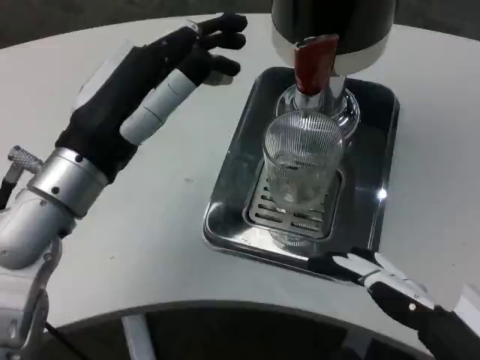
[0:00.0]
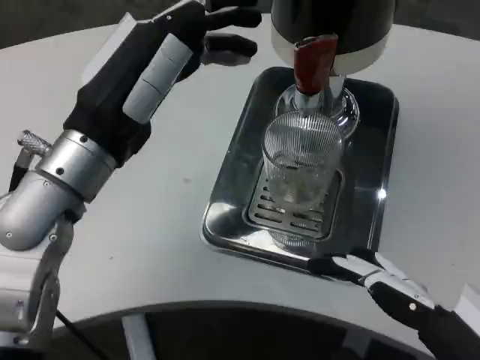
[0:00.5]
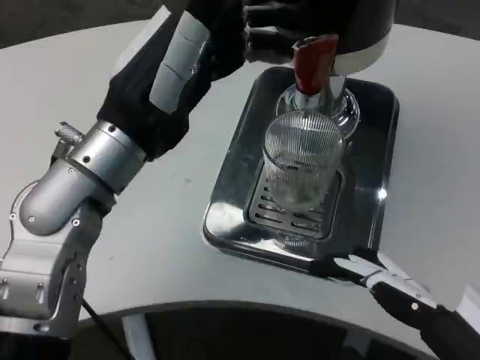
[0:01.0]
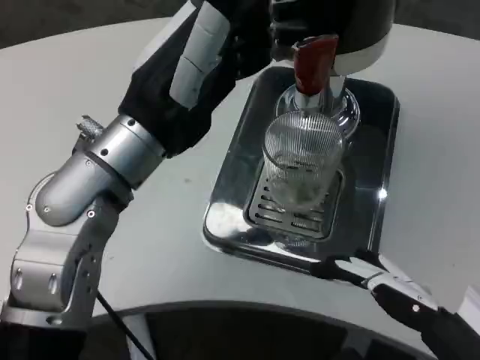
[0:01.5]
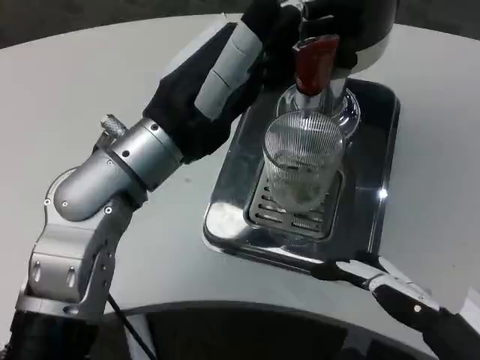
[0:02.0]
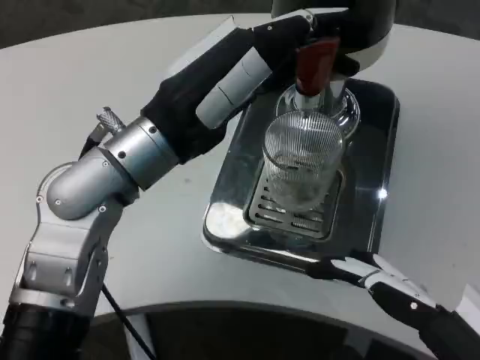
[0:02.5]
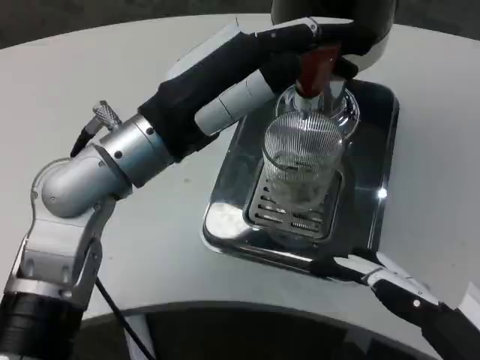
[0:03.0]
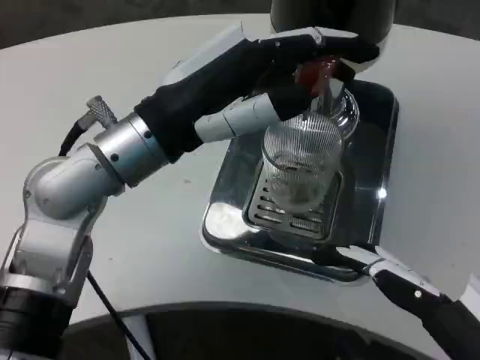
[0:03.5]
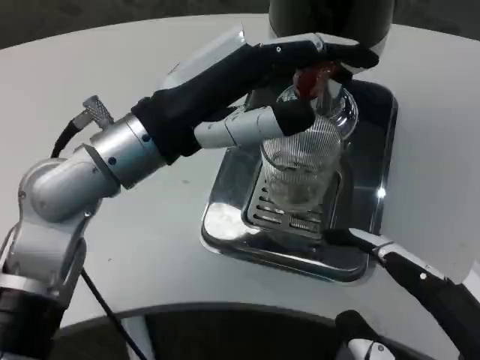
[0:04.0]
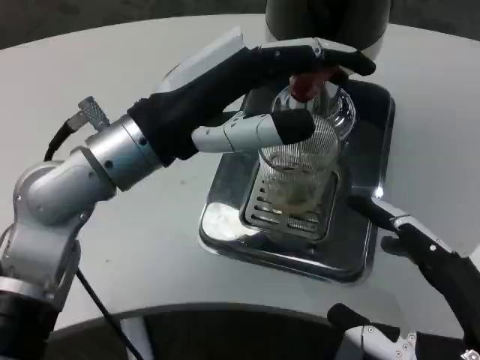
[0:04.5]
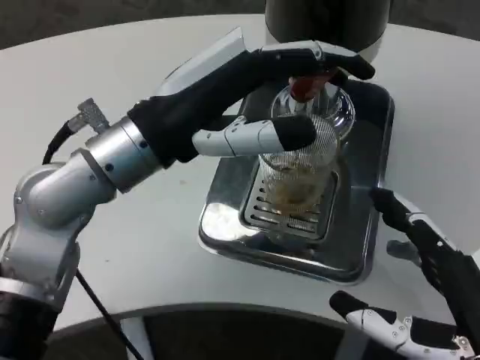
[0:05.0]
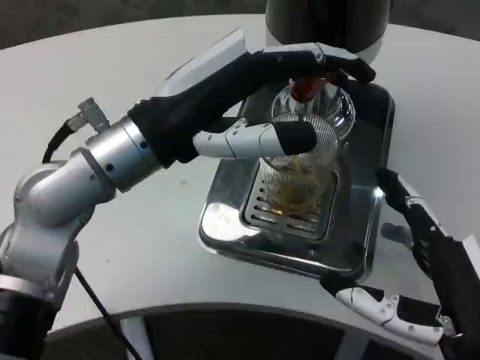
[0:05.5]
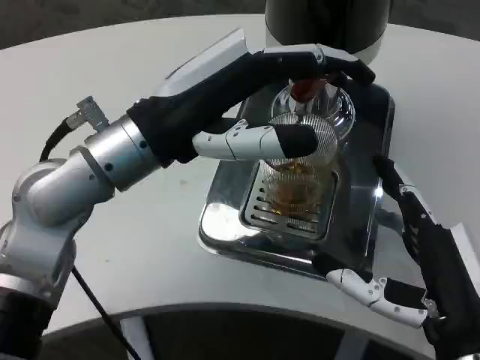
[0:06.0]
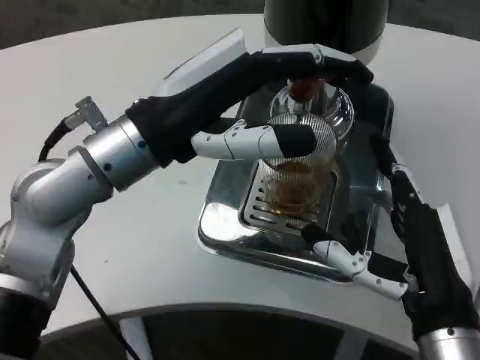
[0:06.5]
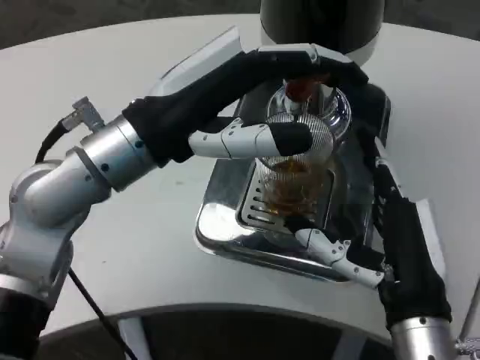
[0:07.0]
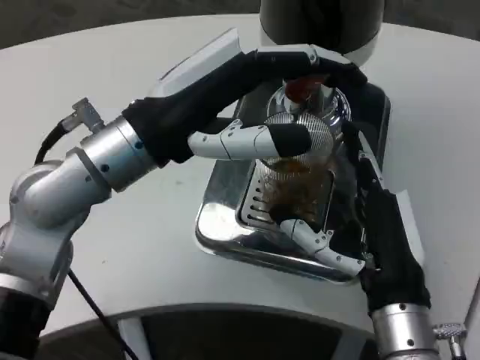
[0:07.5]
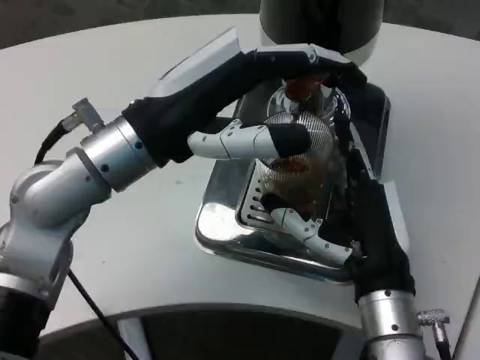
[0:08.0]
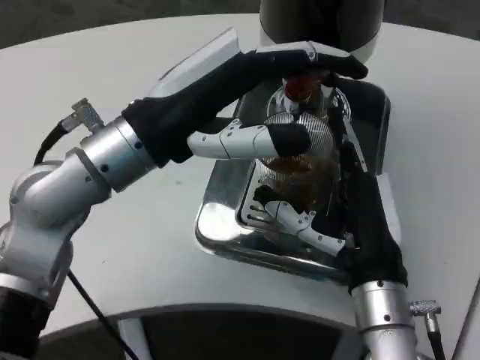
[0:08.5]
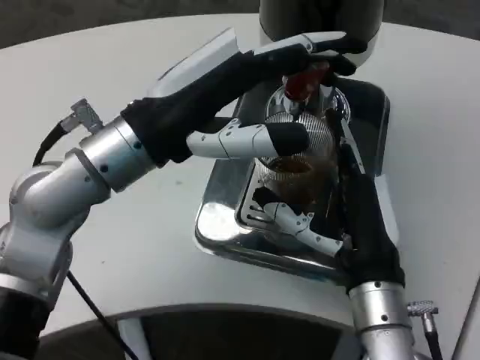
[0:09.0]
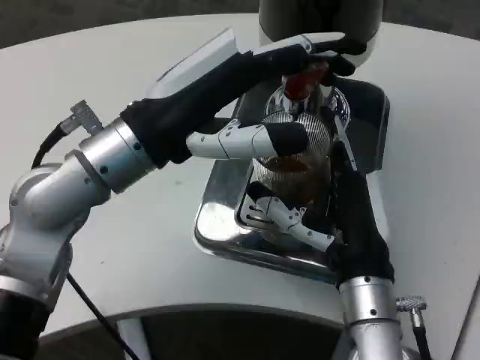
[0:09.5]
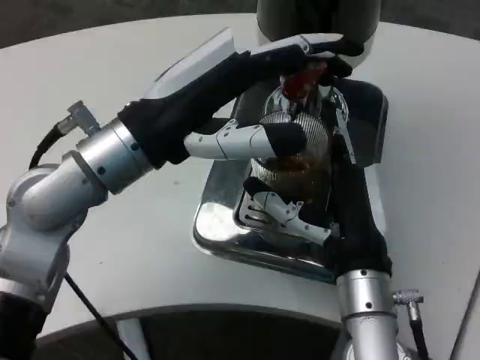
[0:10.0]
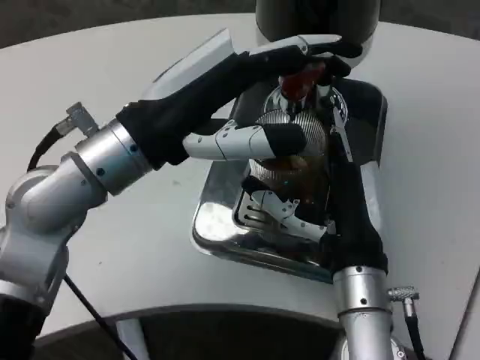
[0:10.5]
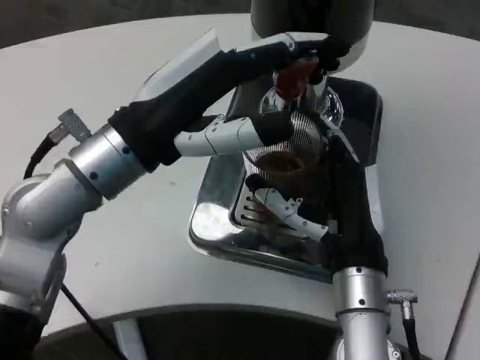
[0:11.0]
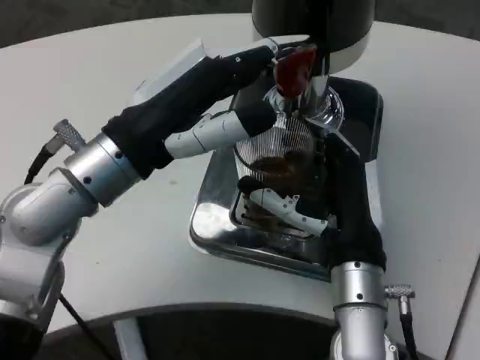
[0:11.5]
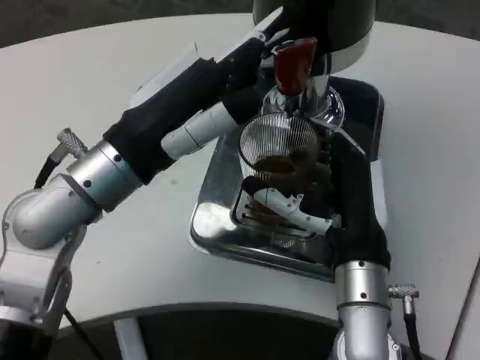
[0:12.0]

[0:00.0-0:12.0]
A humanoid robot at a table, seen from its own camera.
Task of the whole recording: Grasp the cup under the faucet to collect the drink, then remove the cup.
0:00.0 to 0:02.0: The left hand changes place by about 5 cm.
0:04.0 to 0:06.0: The right hand moves forward and downward, roughly 10 cm.
0:06.0 to 0:08.0: The right hand is displaced forward and to the left by some 10 cm.
0:08.0 to 0:10.0: The hands make only small movements.

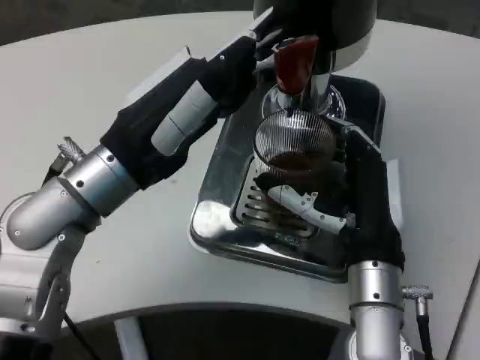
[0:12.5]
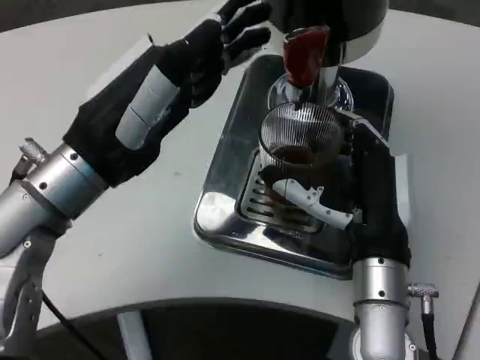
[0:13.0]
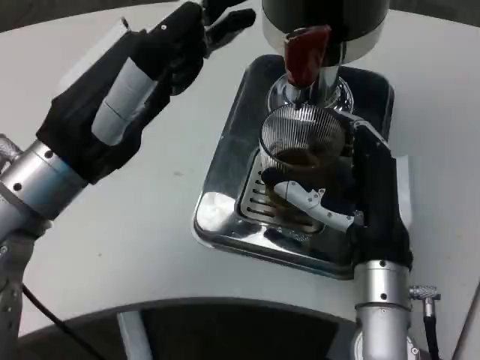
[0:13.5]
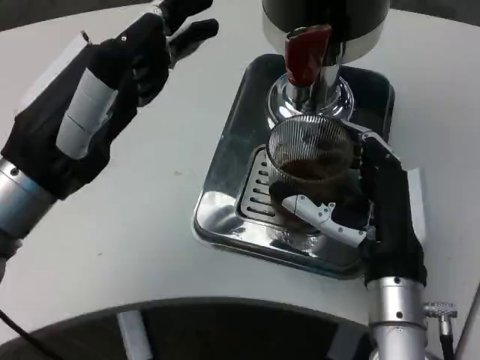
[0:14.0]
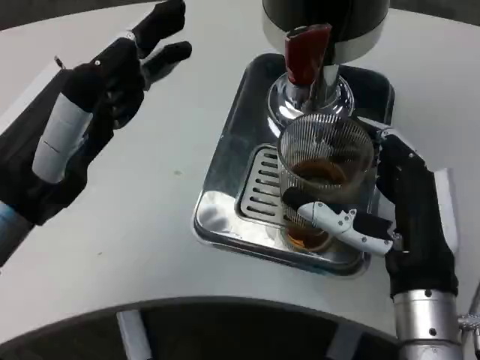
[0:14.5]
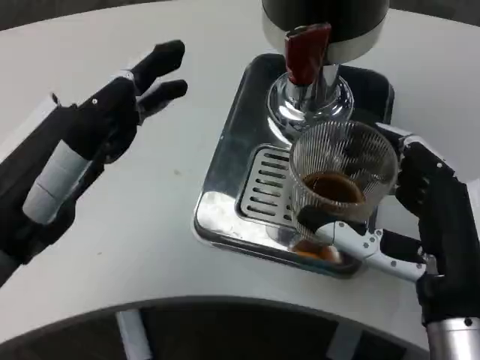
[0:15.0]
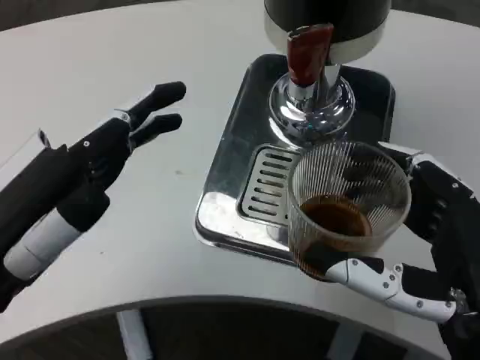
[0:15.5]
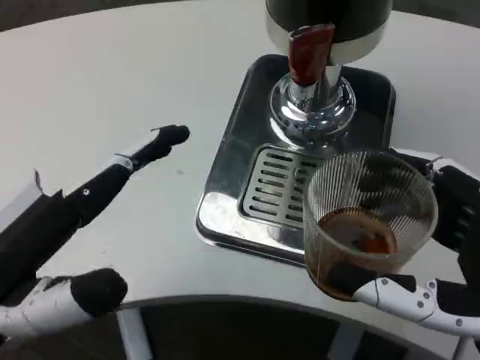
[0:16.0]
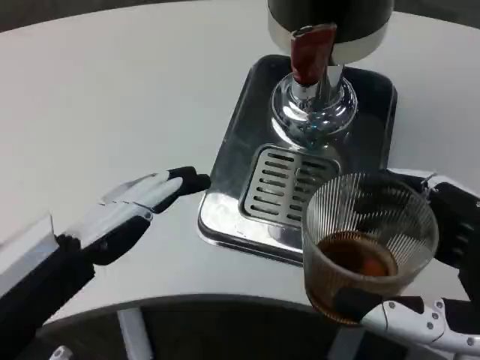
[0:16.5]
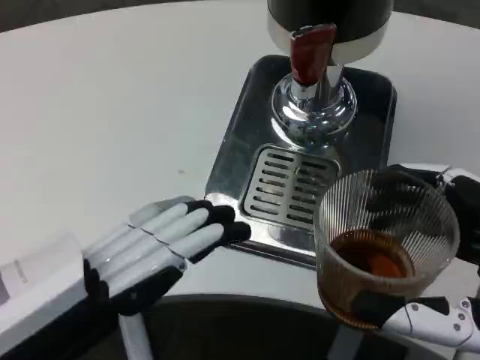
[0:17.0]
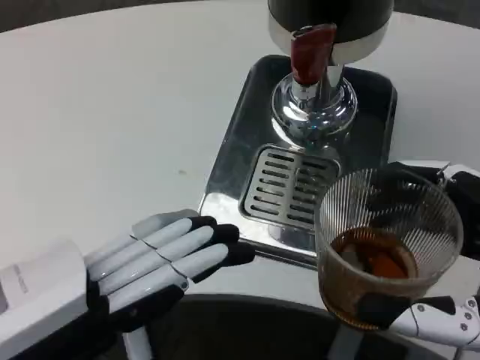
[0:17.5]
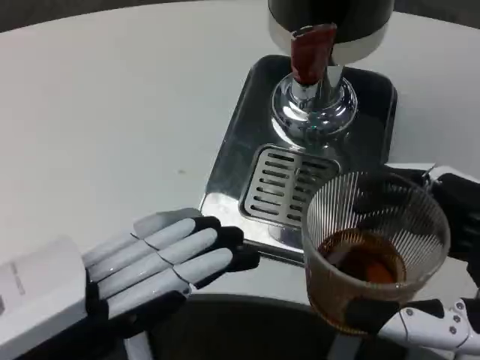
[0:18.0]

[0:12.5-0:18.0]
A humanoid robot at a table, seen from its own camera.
Task of the whole recording: Grasp the cup under the faucet to collect the drink, then remove the cup.
0:12.5 to 0:14.5: The right hand changes place by about 5 cm. Meanwhile the left hand travels backward and to the left by roughly 10 cm.
0:14.5 to 0:16.0: The left hand goes roughly 10 cm backward. Meanwhile the right hand goes roughly 10 cm backward and to the right.

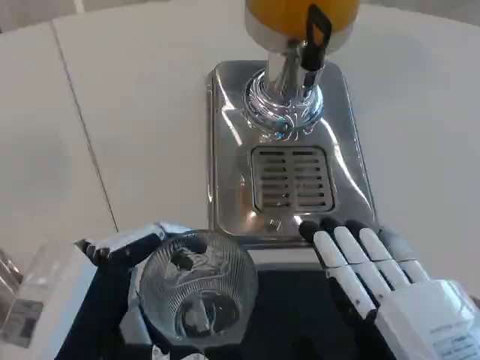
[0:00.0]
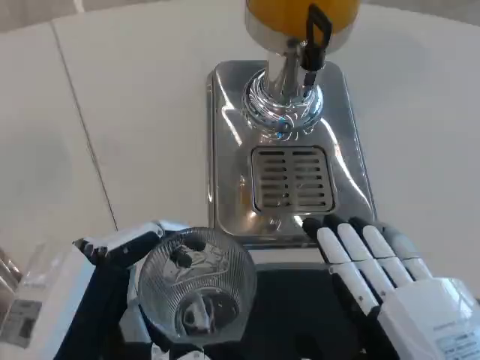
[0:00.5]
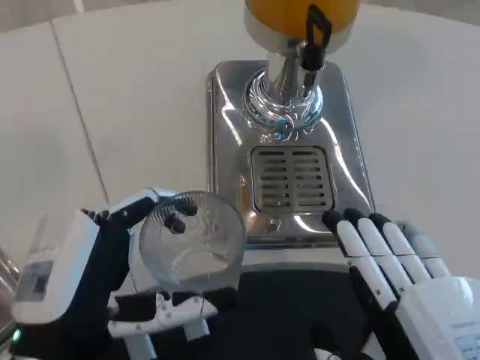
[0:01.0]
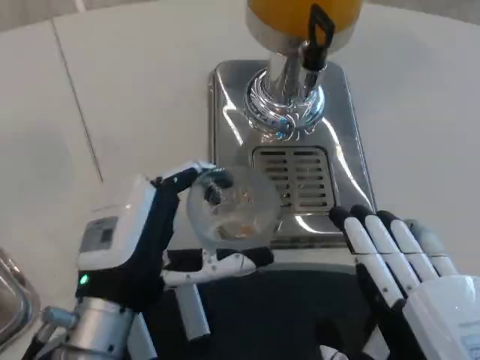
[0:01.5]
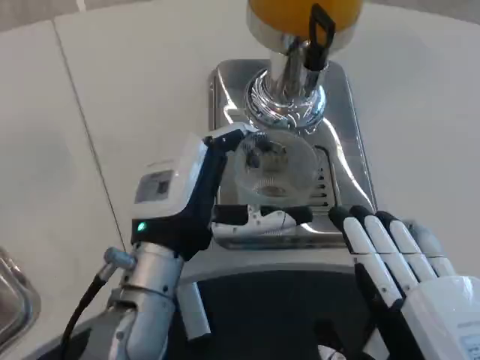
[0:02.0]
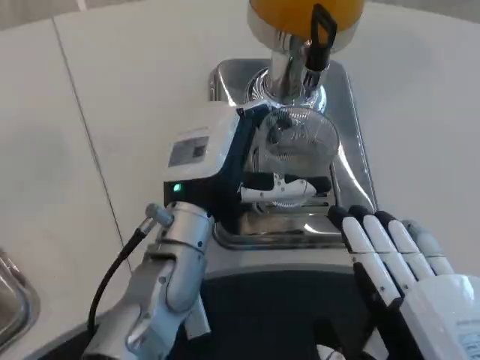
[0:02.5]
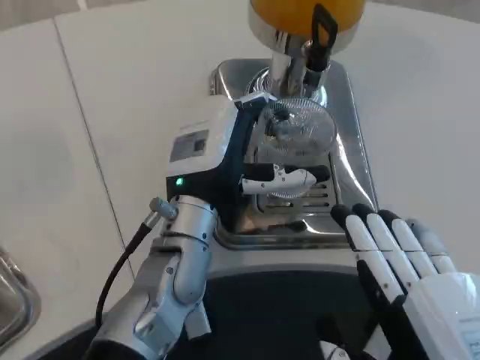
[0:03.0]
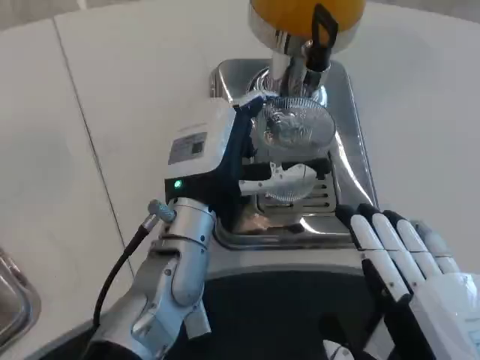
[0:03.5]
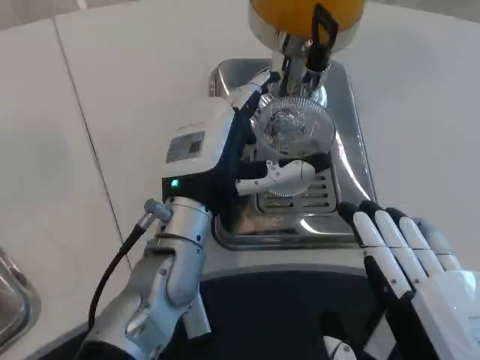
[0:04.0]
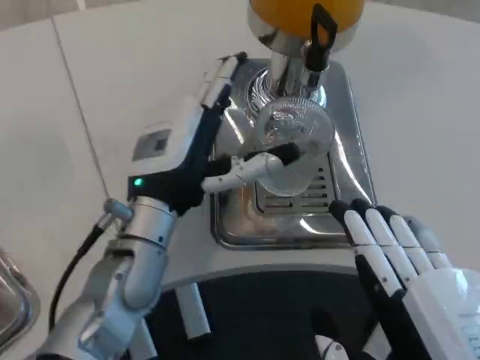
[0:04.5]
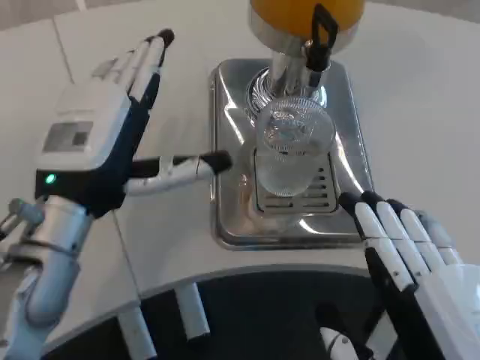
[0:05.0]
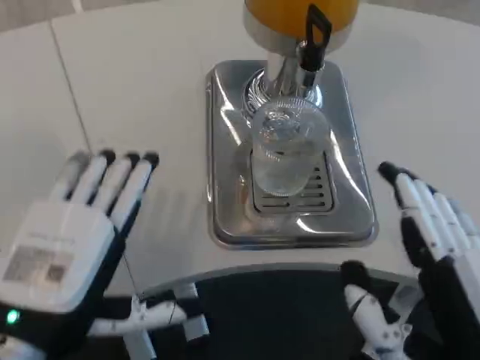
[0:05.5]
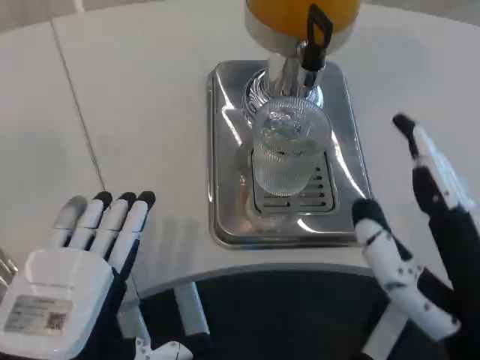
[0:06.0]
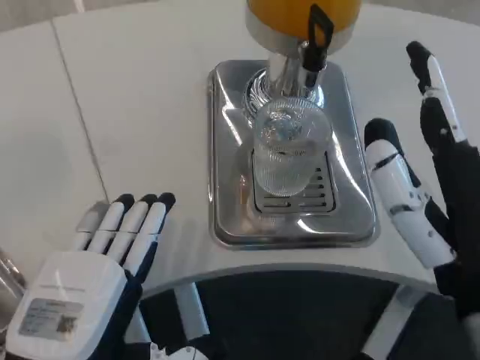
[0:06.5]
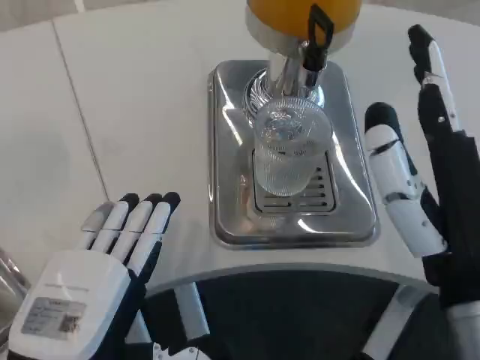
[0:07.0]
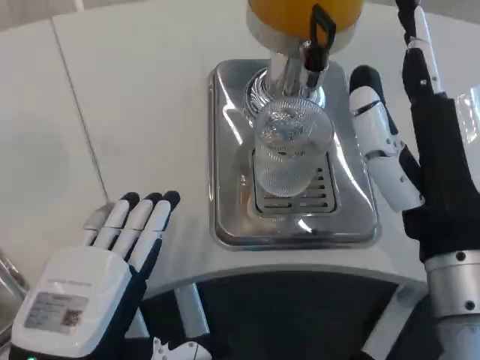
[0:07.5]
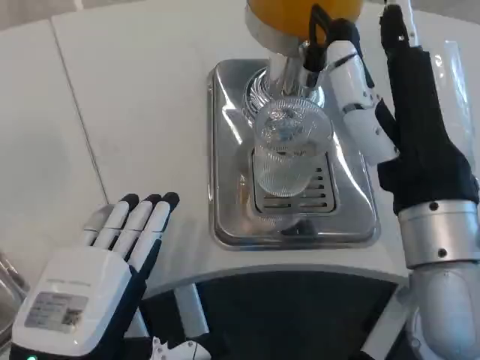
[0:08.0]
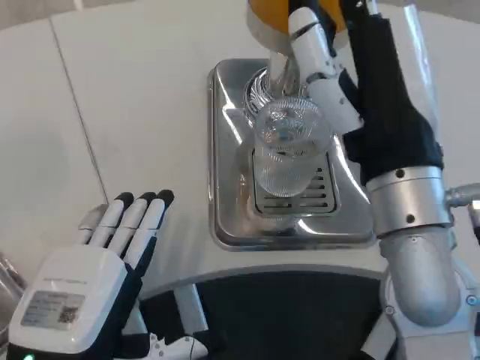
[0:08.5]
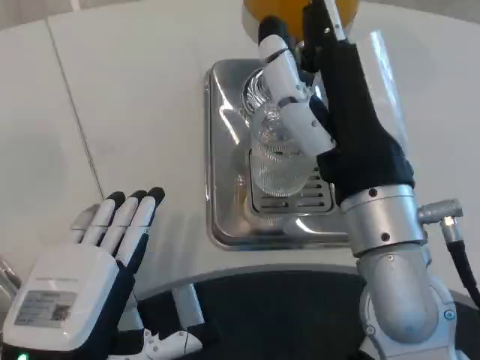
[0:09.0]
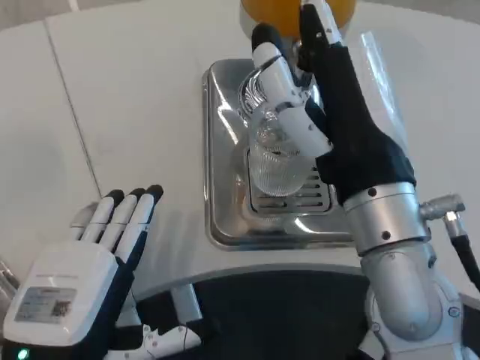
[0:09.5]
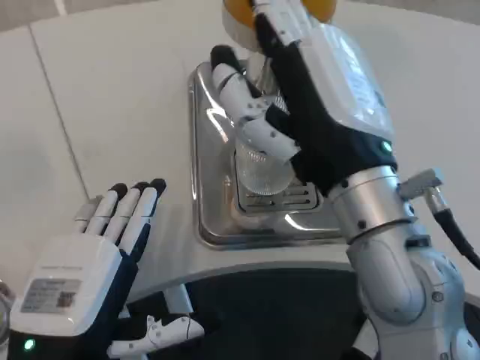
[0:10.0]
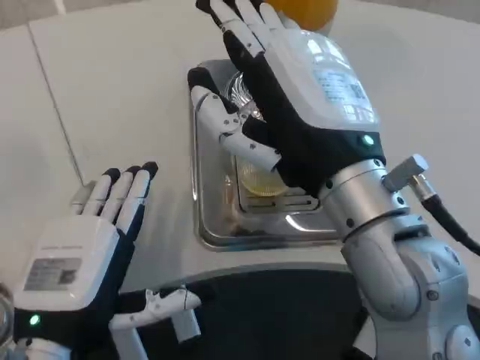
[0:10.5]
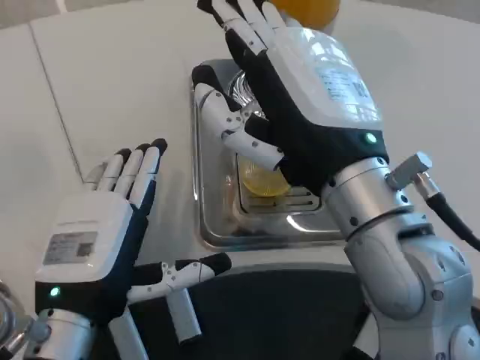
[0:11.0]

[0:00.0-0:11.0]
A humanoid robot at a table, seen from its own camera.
Task of the whole recording: Grasp the cup under the faucet to collect the drink, then remove the cup.
0:00.0 to 0:02.0: The left hand shifts roughly 15 cm forward and to the right.
0:02.0 to 0:03.5: The left hand moves about 5 cm.
0:03.5 to 0:05.5: The left hand heads backward and to the left, covering some 20 cm.
0:05.5 to 0:07.5: The right hand shifts approximately 10 cm forward.
0:07.5 to 0:09.0: The right hand changes place by some 5 cm.
0:09.0 to 0:11.0: The left hand heads forward, covering about 5 cm.
